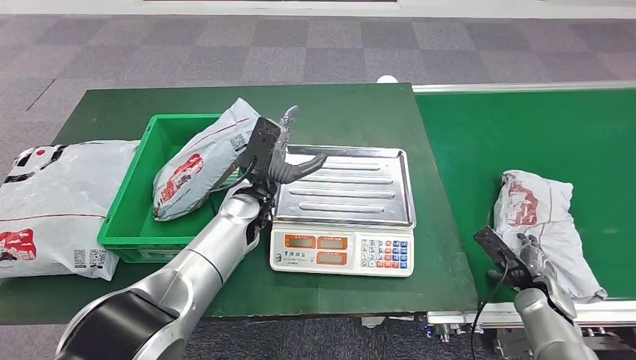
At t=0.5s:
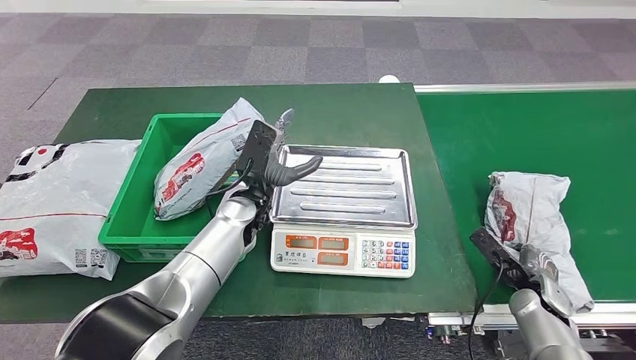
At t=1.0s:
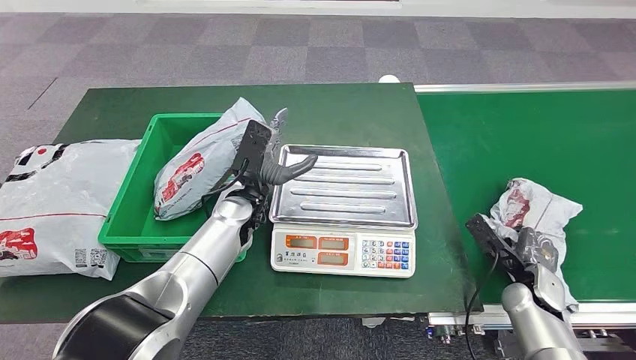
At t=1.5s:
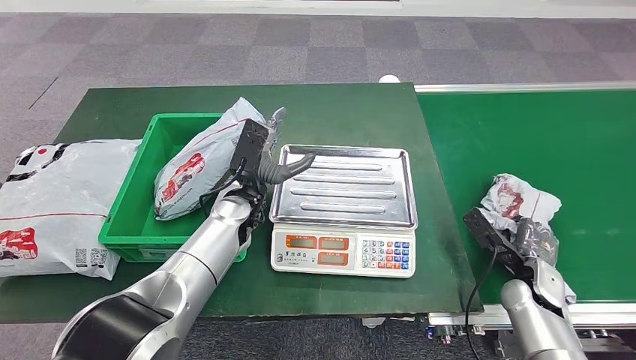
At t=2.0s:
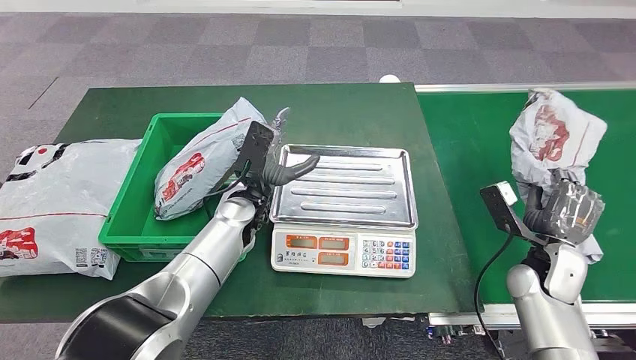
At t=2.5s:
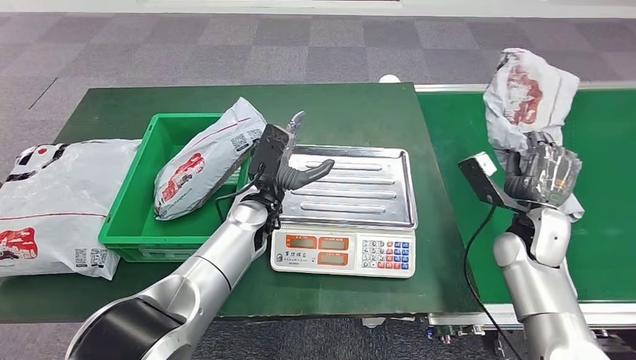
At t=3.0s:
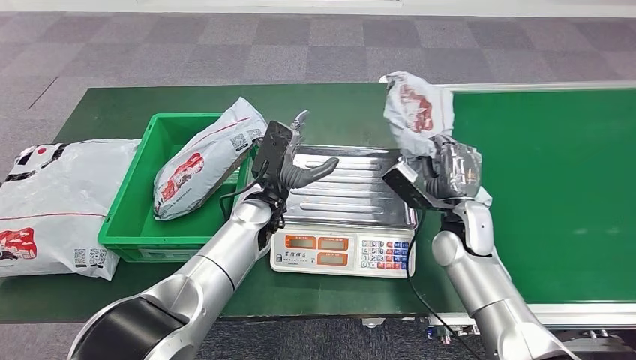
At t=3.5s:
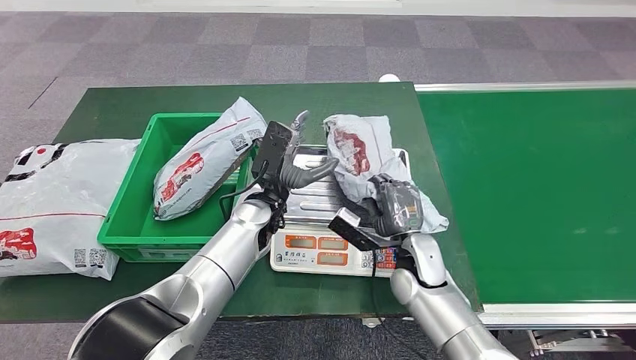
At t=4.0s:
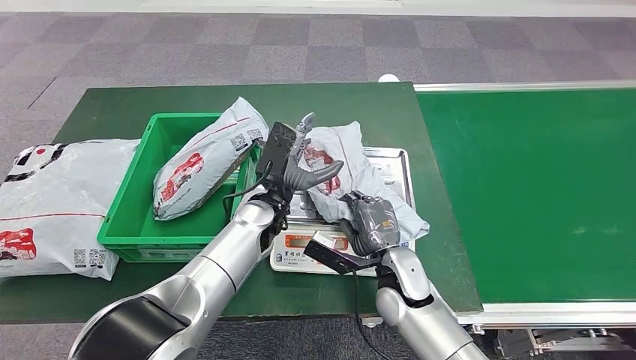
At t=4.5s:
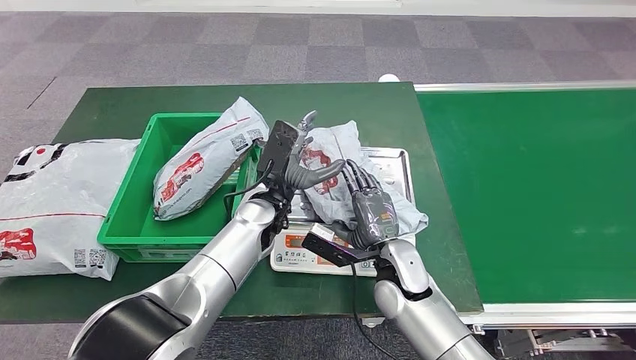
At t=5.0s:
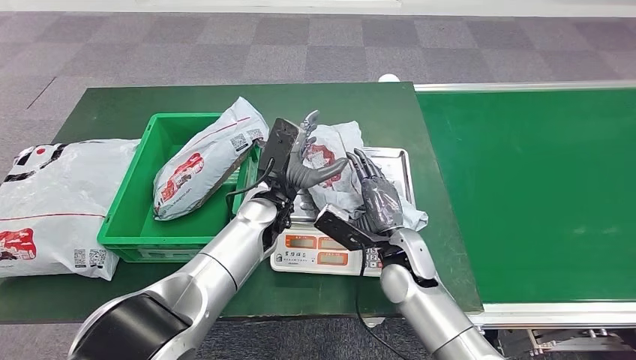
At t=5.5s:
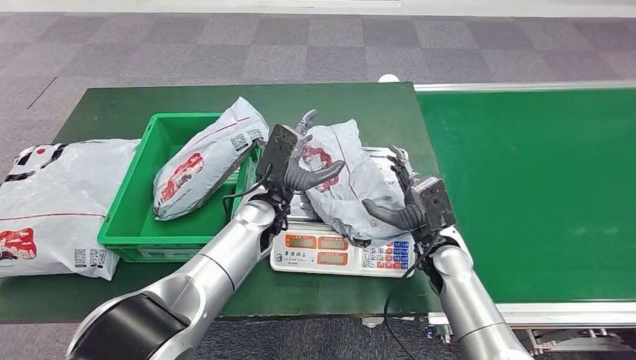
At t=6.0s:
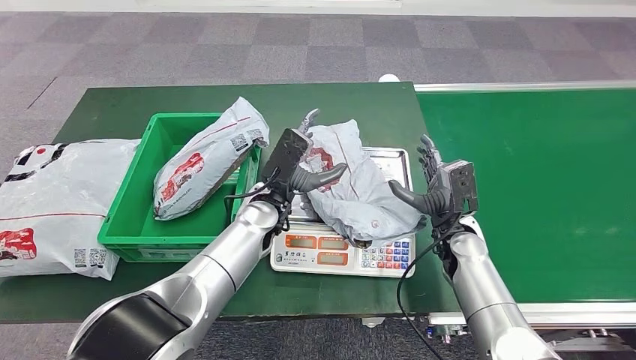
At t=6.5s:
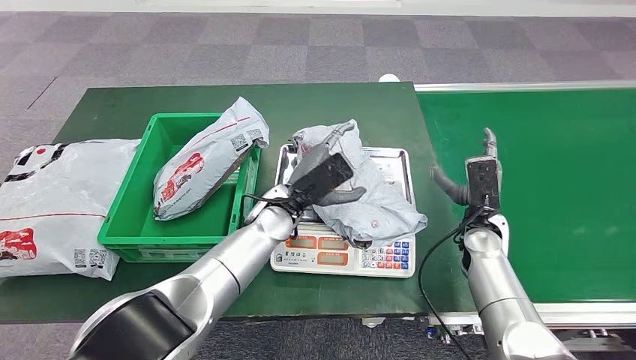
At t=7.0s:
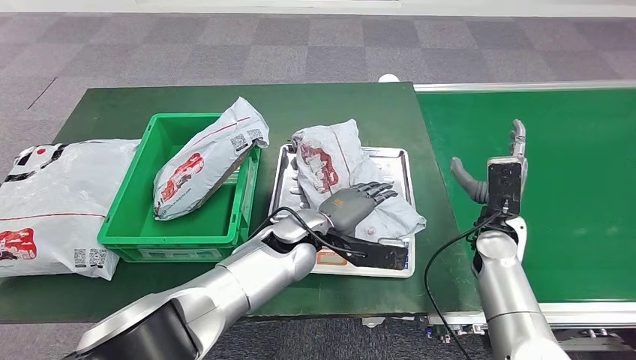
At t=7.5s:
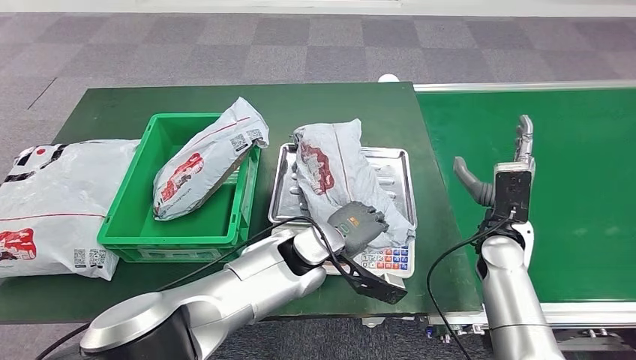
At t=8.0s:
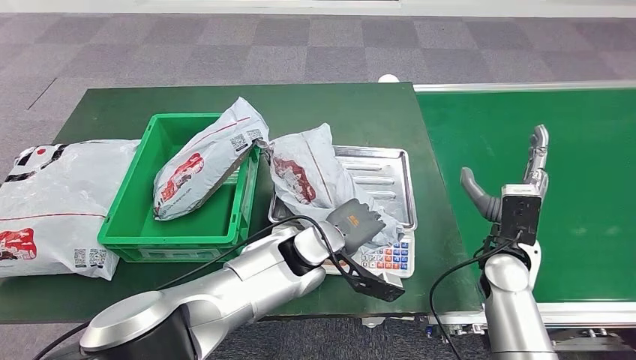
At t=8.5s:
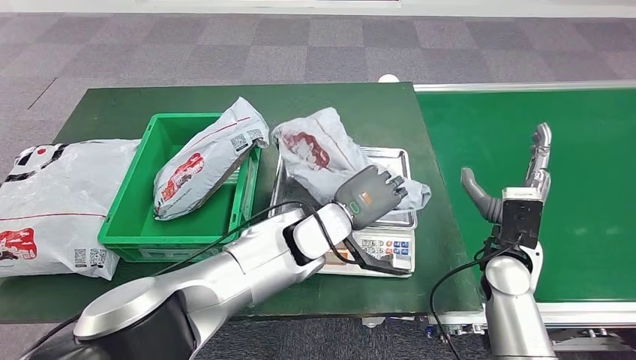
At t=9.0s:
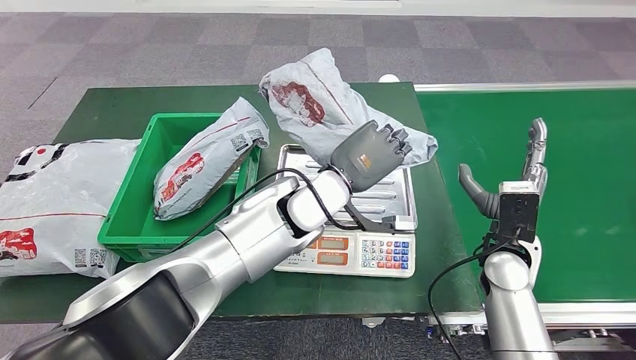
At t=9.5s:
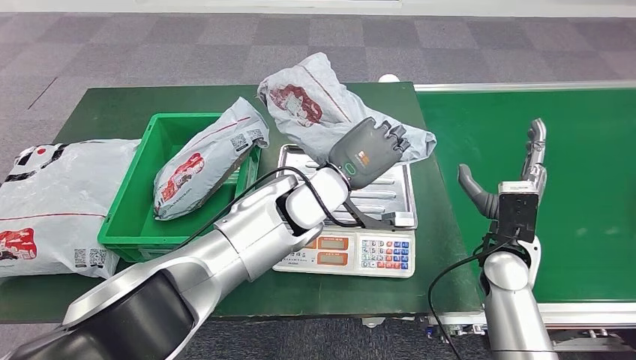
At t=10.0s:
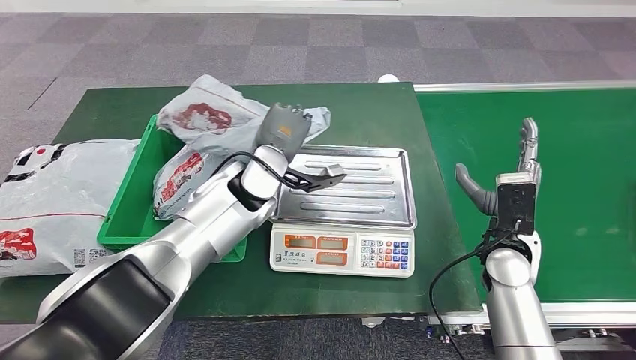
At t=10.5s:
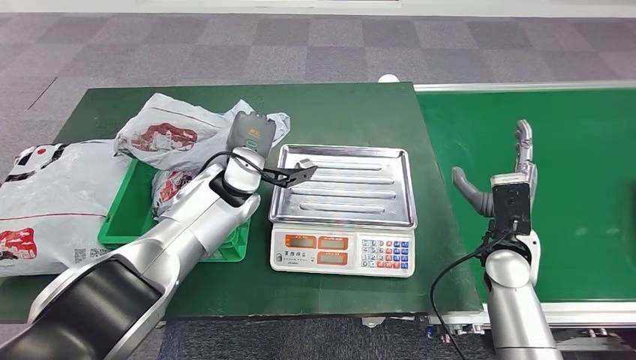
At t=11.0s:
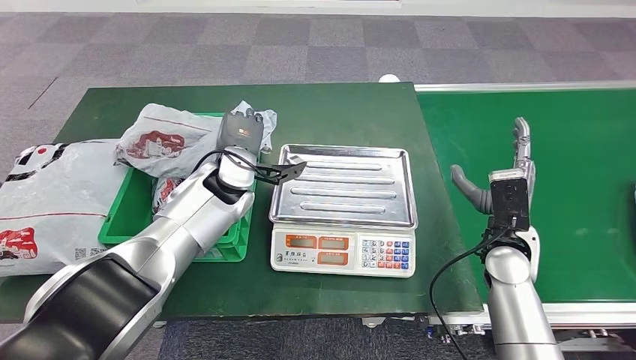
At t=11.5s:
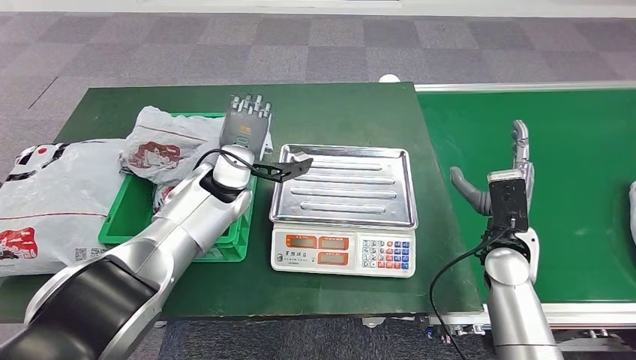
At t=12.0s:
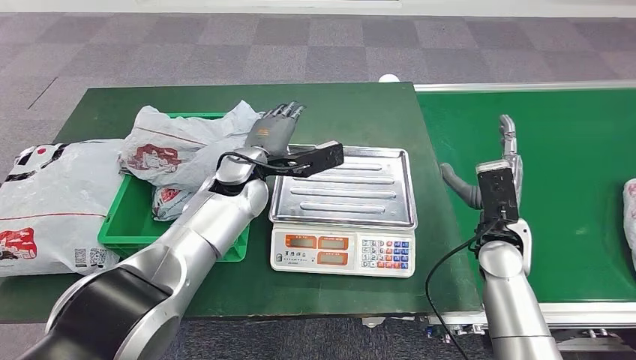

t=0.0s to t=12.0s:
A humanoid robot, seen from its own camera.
Step, t=0.5s to t=2.0s: Pick up the parcel from the conveyor belt.
Step, t=2.5s to t=5.0s: Place the parcel onto the inbound machine.
Step, t=5.5s to t=9.0s: Pick up the parcel from the inbound machine.
t=0.0s to t=2.0s: The right hand goes roughly 10 cm upward.
t=4.0s to t=6.0s: The right hand heads to the right and forward, covering about 15 cm.

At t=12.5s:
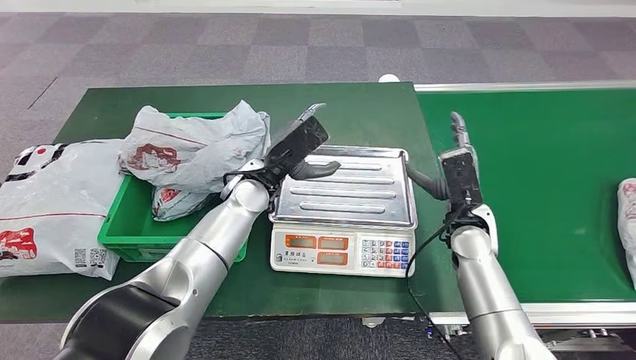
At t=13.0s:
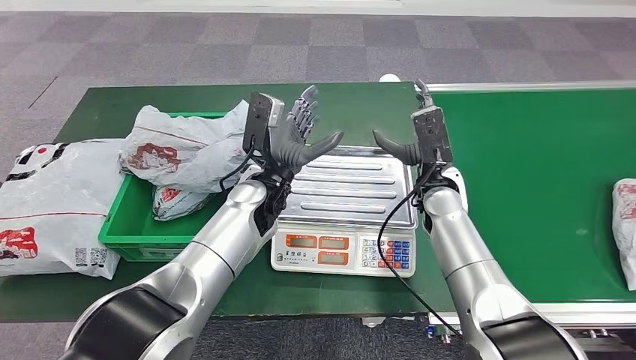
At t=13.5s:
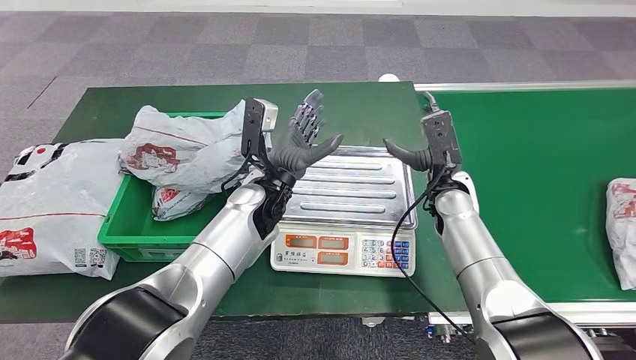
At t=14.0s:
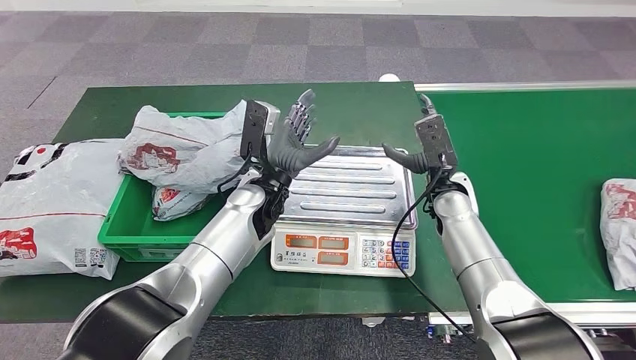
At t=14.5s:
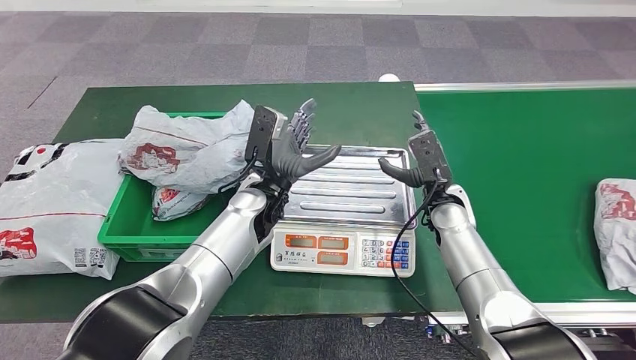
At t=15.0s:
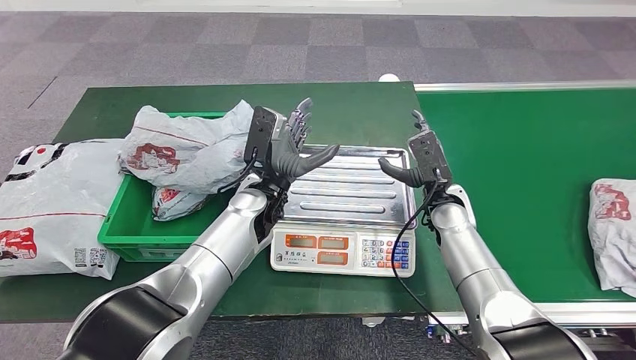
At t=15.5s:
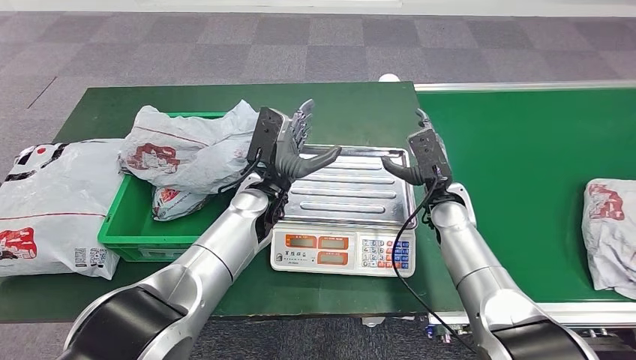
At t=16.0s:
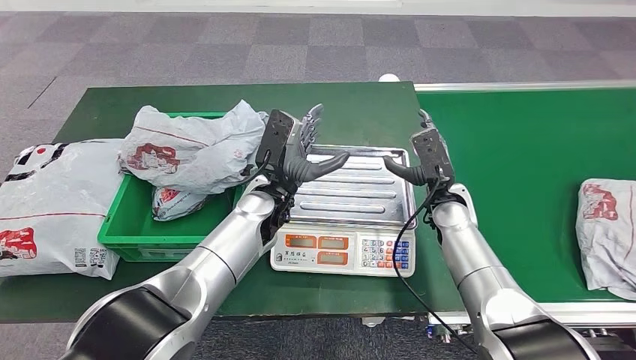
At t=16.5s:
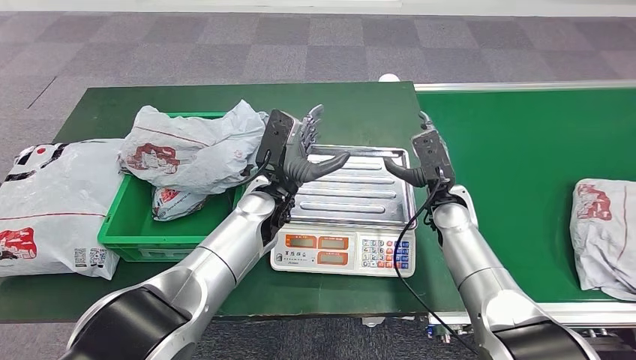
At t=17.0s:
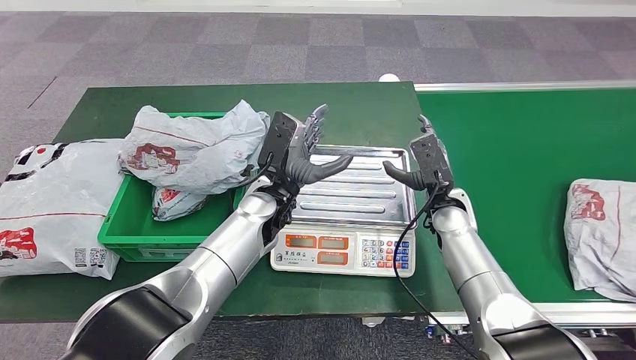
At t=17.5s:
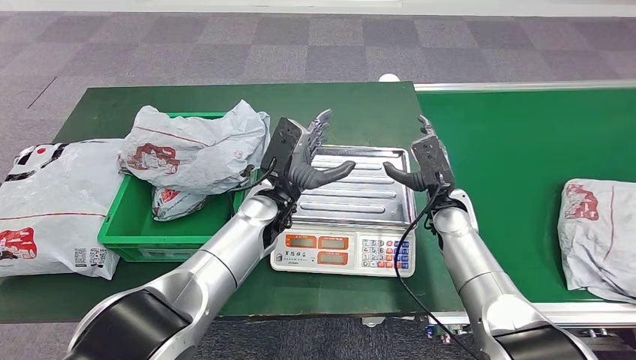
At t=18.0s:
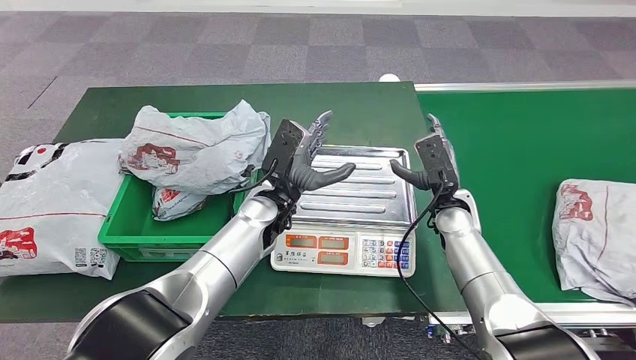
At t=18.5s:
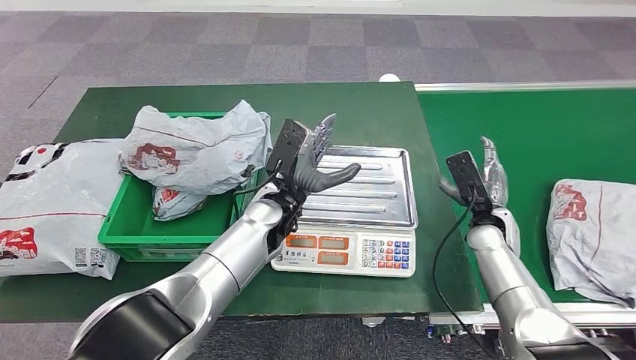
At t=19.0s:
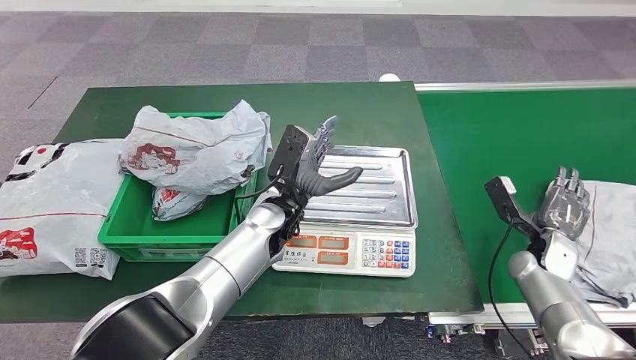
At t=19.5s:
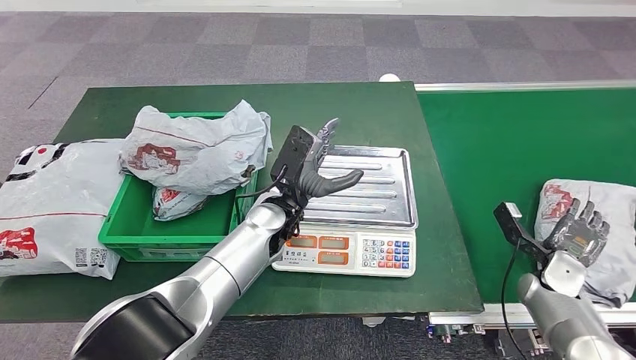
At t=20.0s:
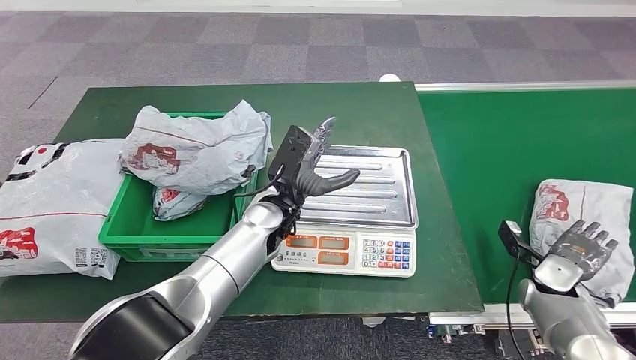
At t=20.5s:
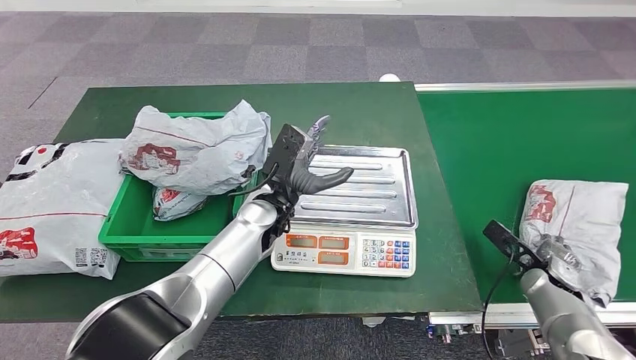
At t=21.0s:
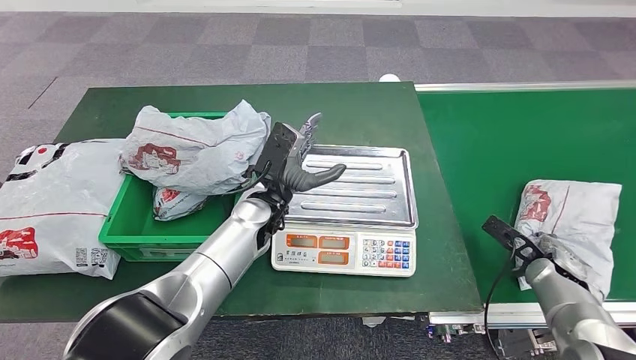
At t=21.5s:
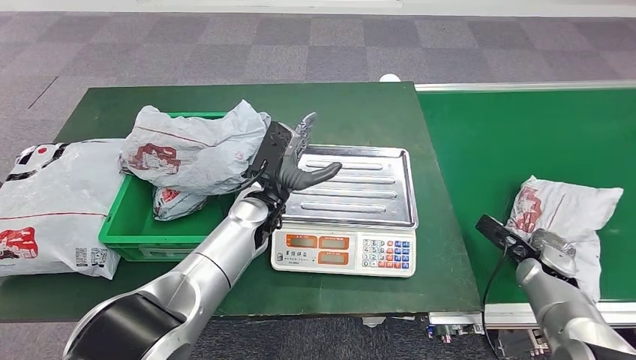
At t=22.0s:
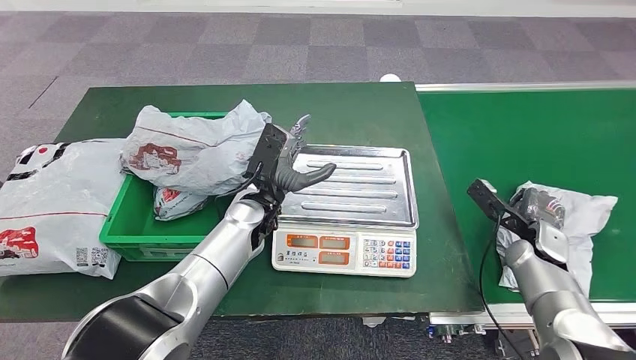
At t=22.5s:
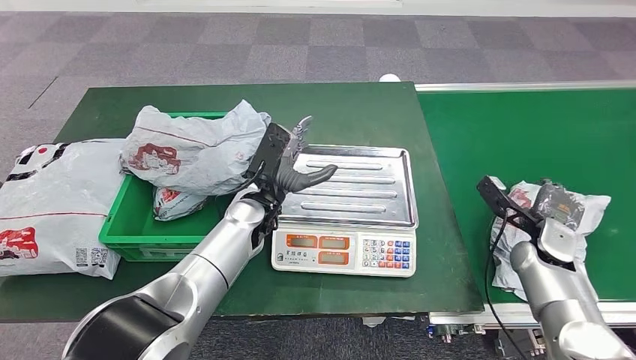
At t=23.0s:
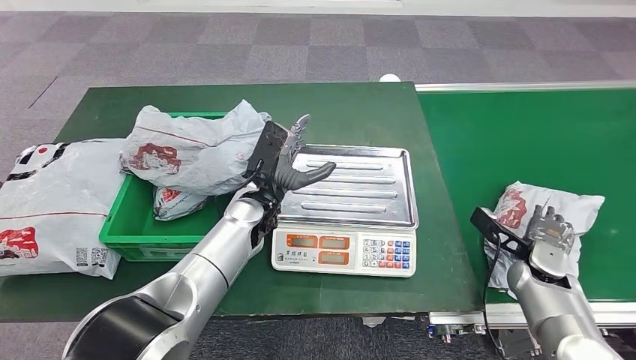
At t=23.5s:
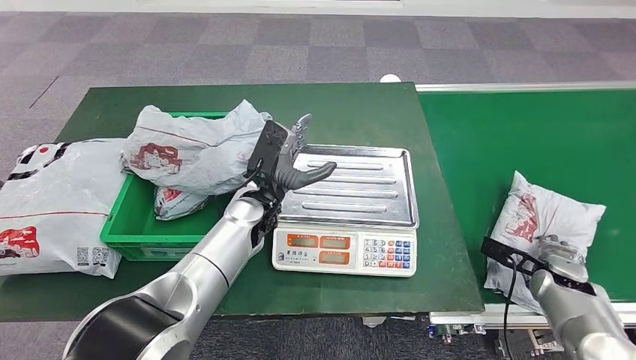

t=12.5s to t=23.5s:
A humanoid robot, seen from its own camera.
t=14.5s to t=18.0s: The hands make only small movements.
t=18.0s to t=20.0s: The right hand heads to the right, downward and backward, covering some 25 cm.
